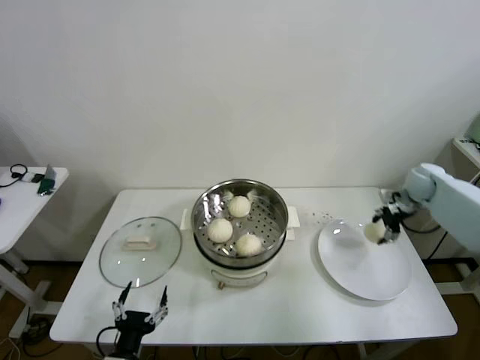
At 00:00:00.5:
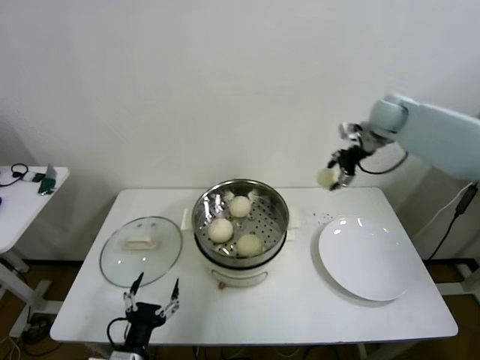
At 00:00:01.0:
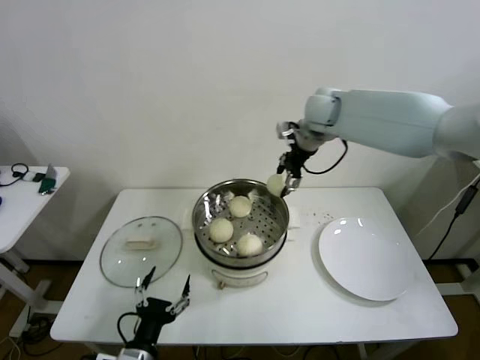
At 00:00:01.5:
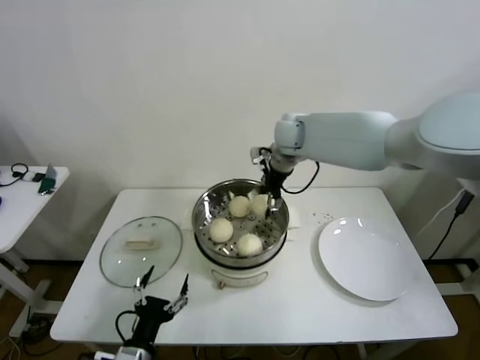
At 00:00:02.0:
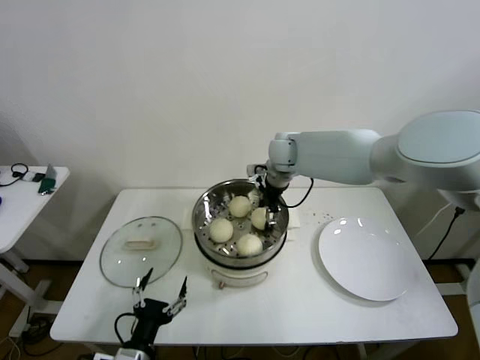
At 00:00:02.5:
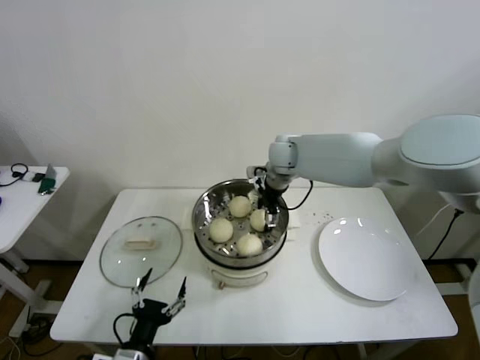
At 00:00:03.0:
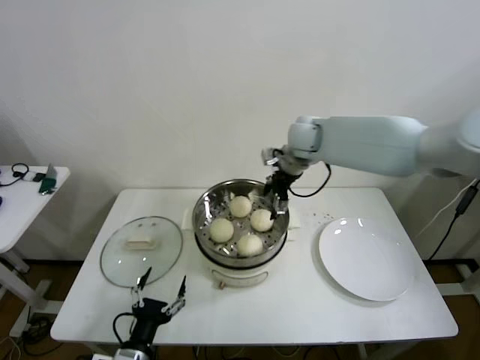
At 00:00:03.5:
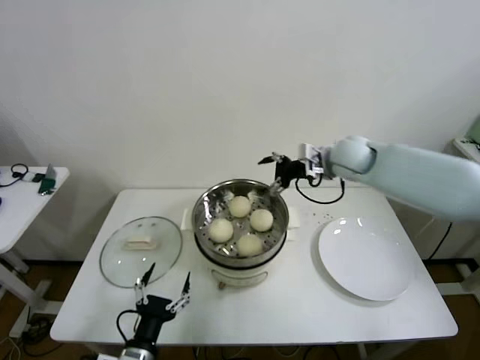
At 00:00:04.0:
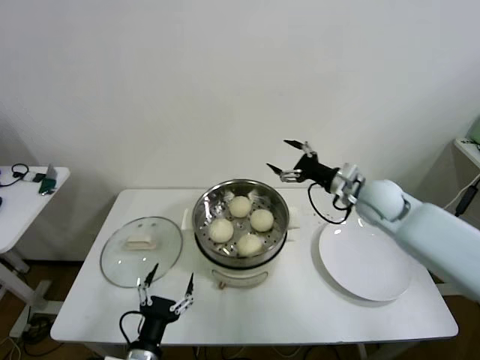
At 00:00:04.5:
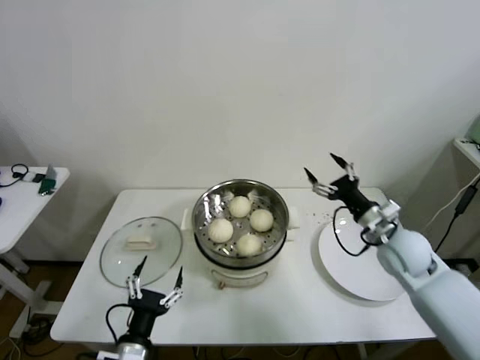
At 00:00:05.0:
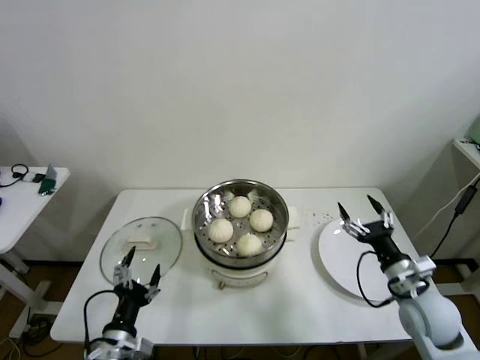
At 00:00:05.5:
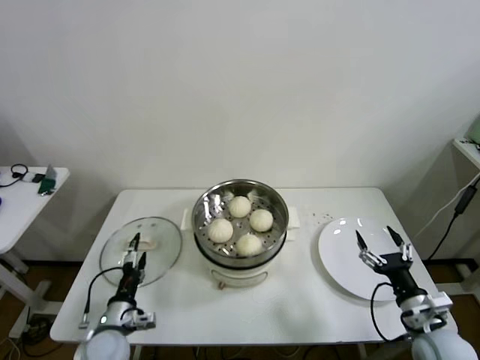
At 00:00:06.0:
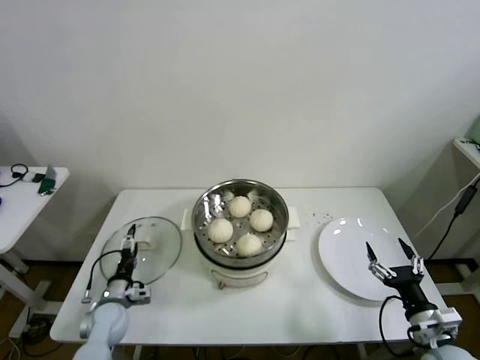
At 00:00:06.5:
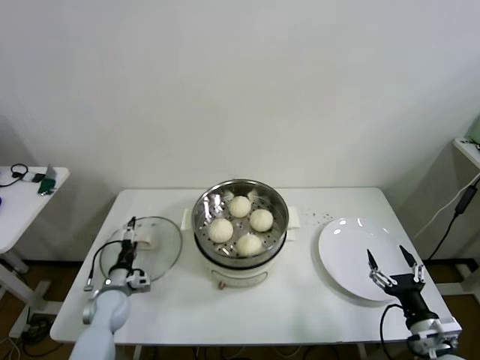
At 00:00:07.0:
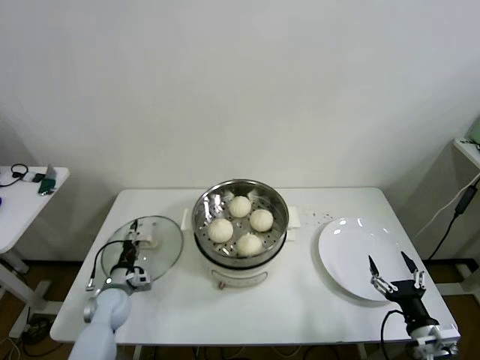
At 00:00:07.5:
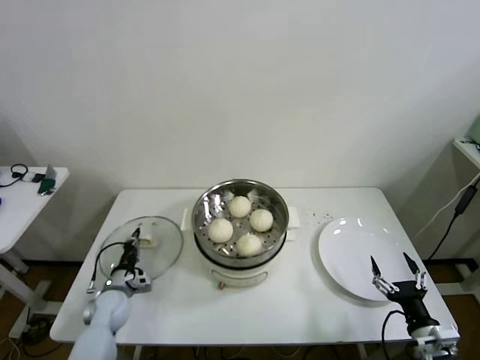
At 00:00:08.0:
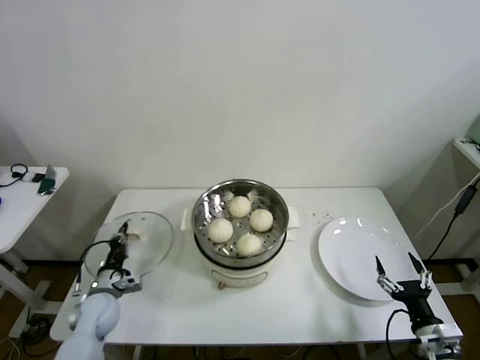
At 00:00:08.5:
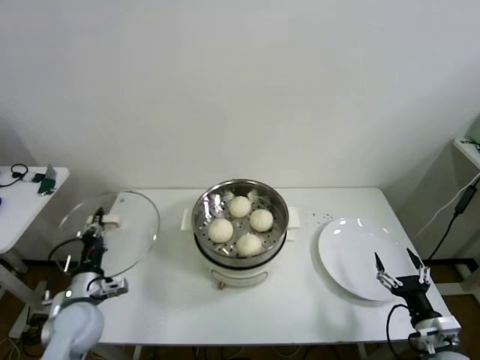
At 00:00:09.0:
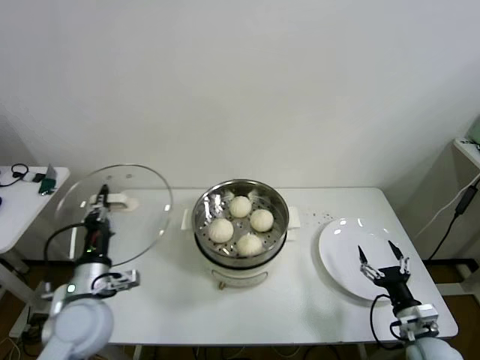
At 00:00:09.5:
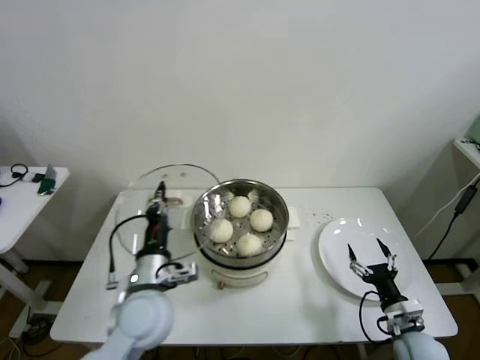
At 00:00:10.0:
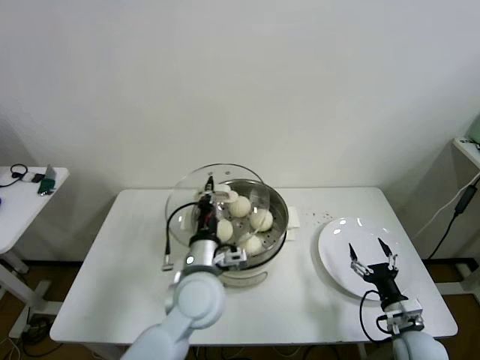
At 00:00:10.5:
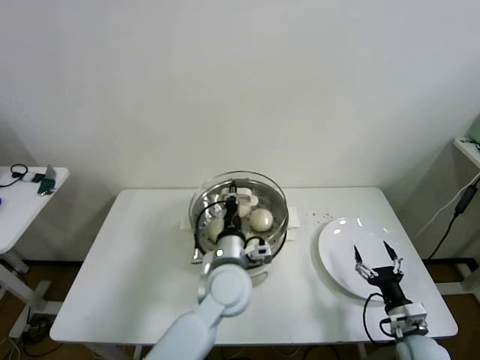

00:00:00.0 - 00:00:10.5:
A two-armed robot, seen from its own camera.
Step, 00:00:00.0 - 00:00:02.5: Place the baozi on the steamer with right gripper.
Step, 00:00:03.0 - 00:00:07.0: Grasp the pot lid with left gripper.
00:00:00.0 - 00:00:02.0: The right gripper shifts roughly 35 cm to the left.
00:00:02.0 - 00:00:04.0: The right gripper heads to the right and backward, covering approximately 25 cm, and opens.
00:00:04.0 - 00:00:06.5: The left gripper goes roughly 25 cm forward, to the left and downward; the right gripper travels backward and downward by some 35 cm.
00:00:06.5 - 00:00:08.5: The left gripper is displaced upward and backward by about 10 cm, and closes up.
00:00:08.5 - 00:00:10.5: The left gripper travels to the right by roughly 30 cm. The right gripper moves approximately 5 cm.

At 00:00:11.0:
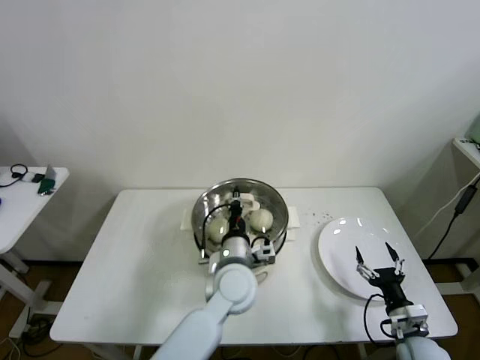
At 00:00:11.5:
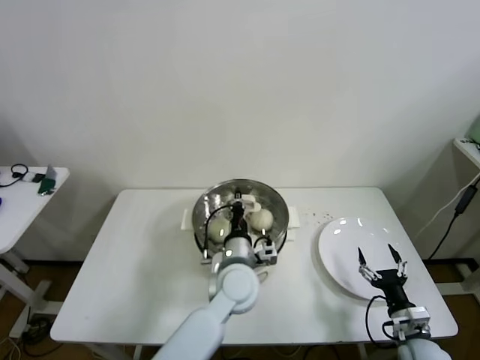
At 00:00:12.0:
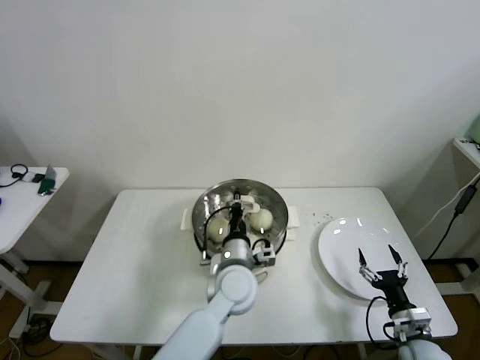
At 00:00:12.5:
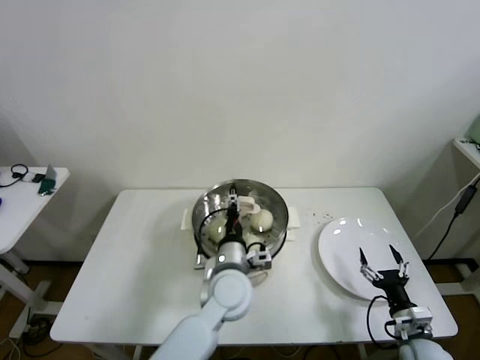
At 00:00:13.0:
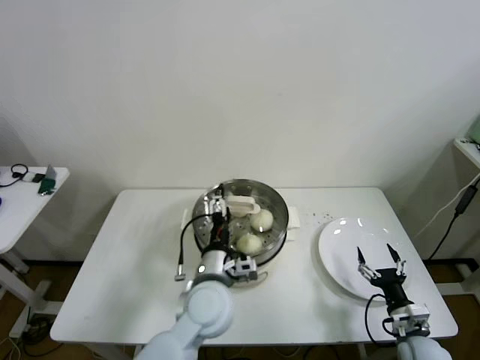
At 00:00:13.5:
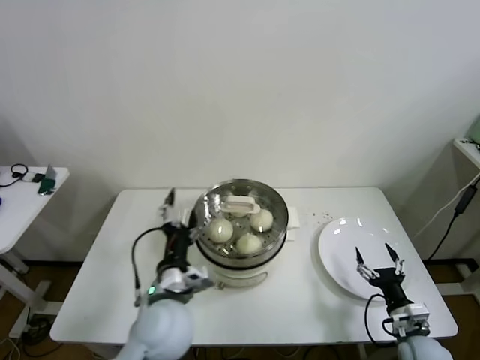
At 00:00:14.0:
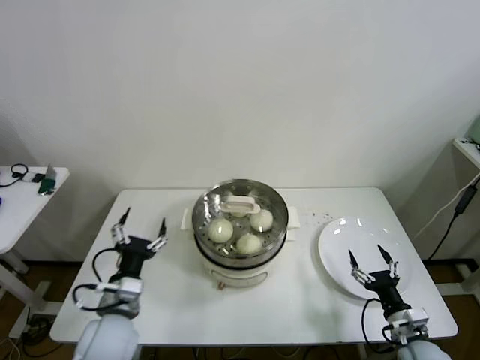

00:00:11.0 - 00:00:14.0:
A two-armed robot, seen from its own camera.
00:00:11.0 - 00:00:12.5: The left gripper opens up.
00:00:12.5 - 00:00:14.0: The left gripper goes about 20 cm to the left and backward, and opens its fingers.
